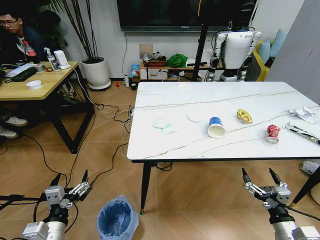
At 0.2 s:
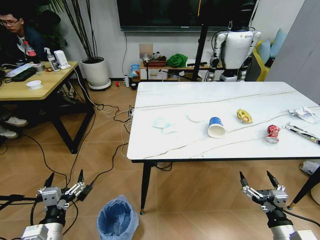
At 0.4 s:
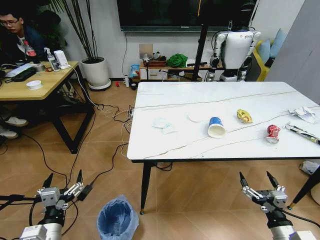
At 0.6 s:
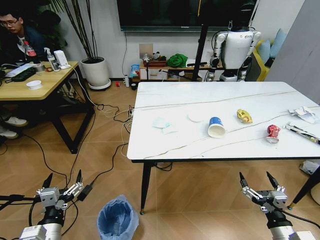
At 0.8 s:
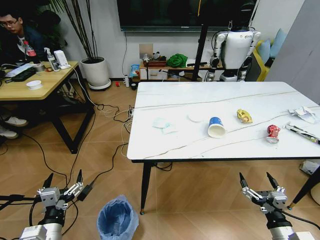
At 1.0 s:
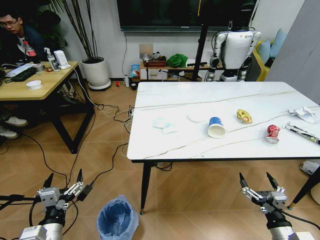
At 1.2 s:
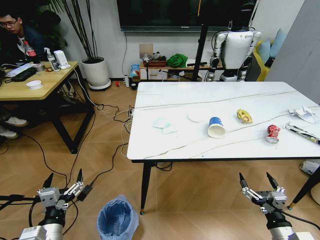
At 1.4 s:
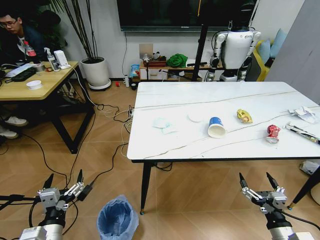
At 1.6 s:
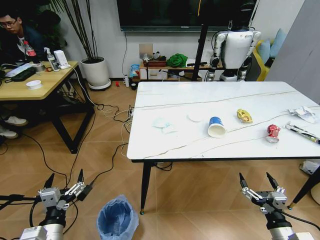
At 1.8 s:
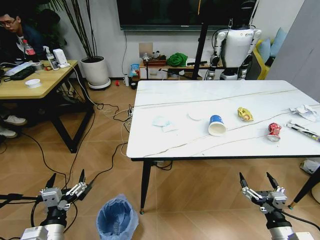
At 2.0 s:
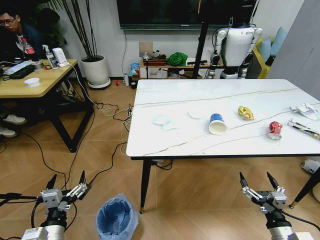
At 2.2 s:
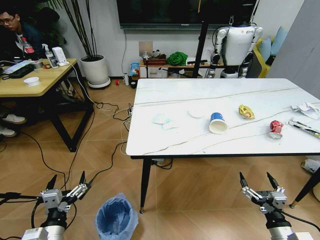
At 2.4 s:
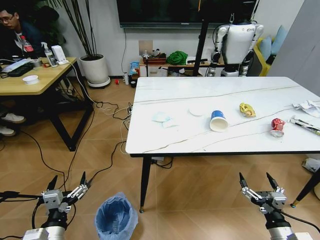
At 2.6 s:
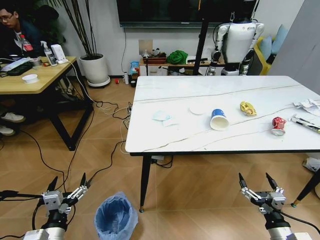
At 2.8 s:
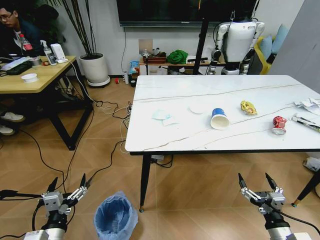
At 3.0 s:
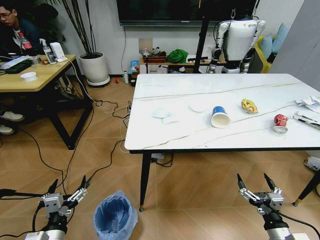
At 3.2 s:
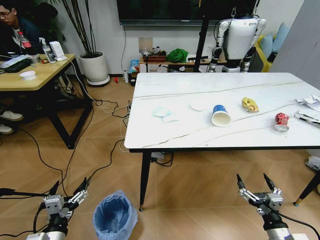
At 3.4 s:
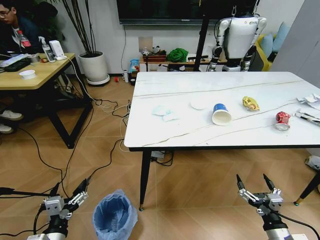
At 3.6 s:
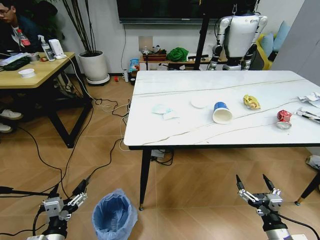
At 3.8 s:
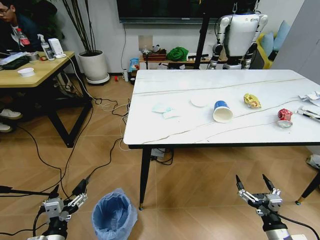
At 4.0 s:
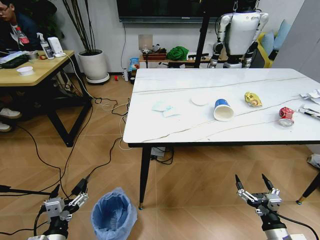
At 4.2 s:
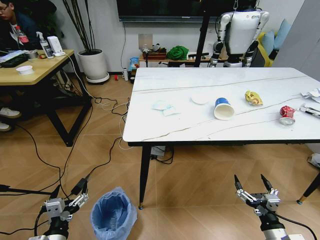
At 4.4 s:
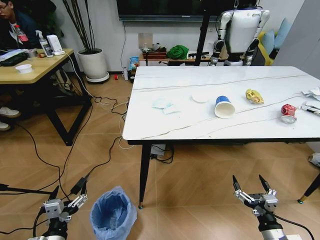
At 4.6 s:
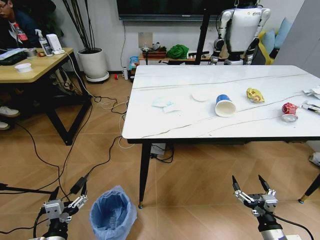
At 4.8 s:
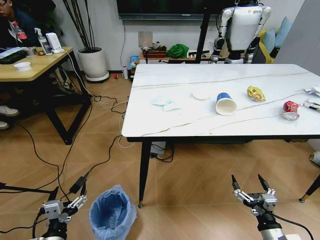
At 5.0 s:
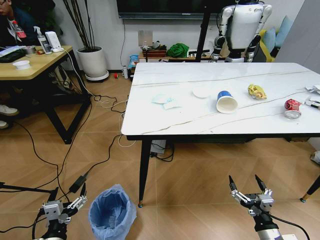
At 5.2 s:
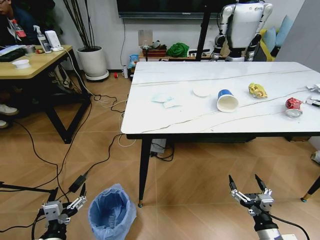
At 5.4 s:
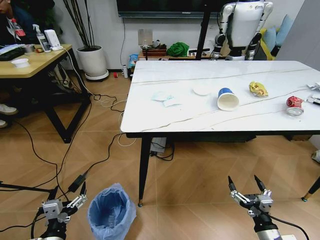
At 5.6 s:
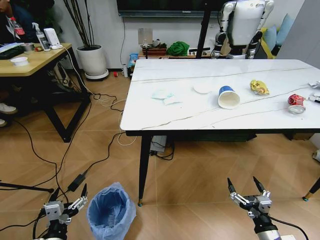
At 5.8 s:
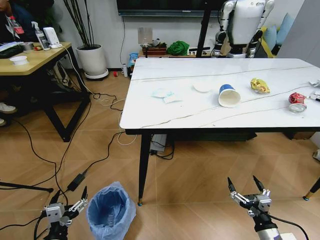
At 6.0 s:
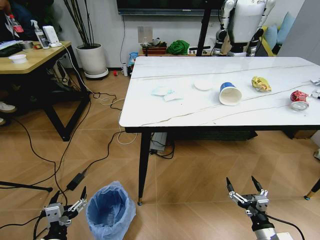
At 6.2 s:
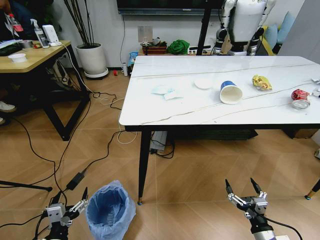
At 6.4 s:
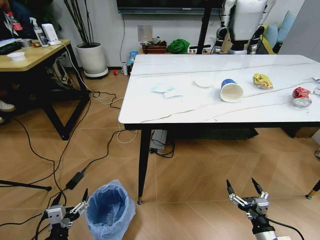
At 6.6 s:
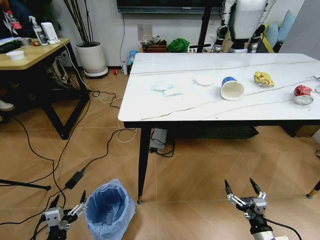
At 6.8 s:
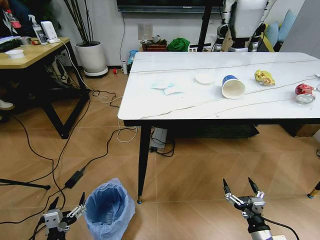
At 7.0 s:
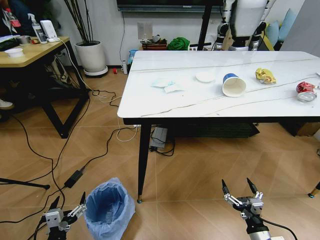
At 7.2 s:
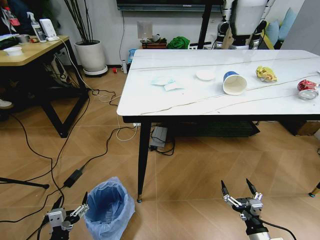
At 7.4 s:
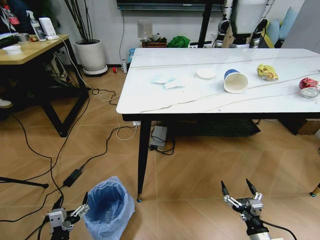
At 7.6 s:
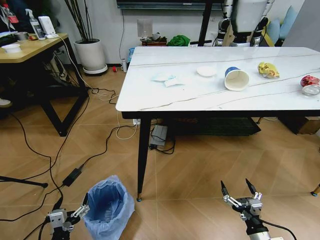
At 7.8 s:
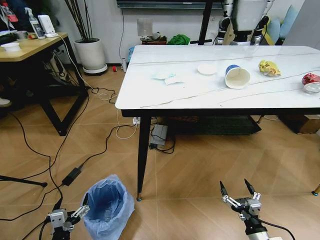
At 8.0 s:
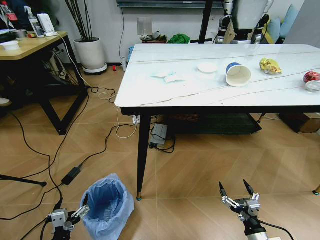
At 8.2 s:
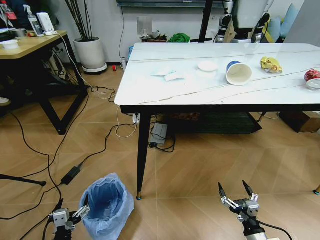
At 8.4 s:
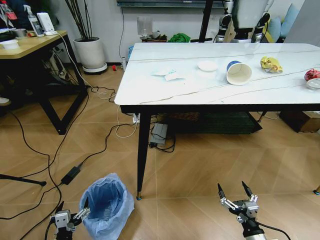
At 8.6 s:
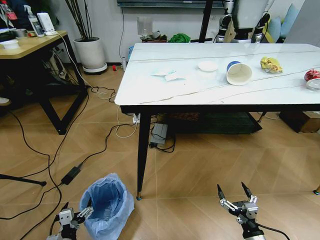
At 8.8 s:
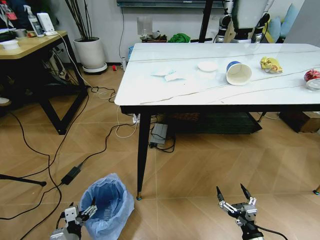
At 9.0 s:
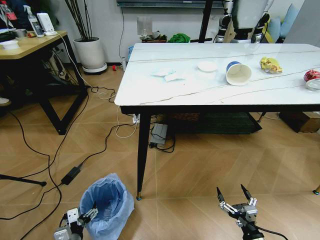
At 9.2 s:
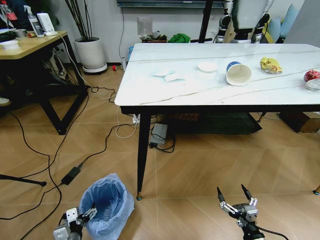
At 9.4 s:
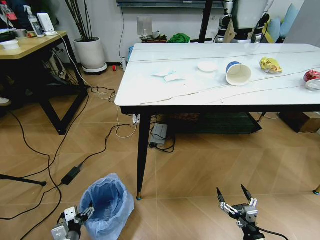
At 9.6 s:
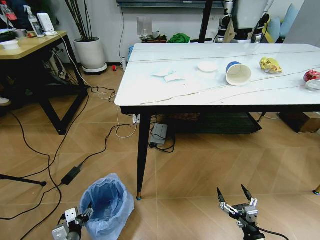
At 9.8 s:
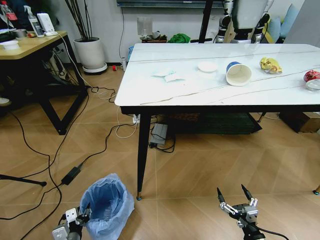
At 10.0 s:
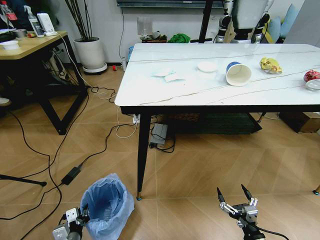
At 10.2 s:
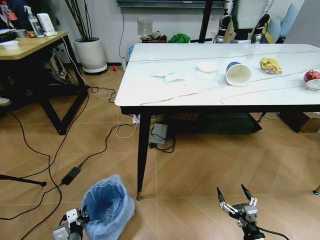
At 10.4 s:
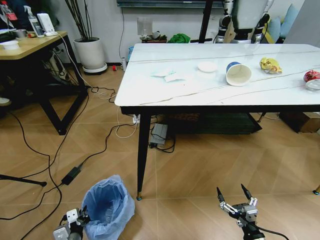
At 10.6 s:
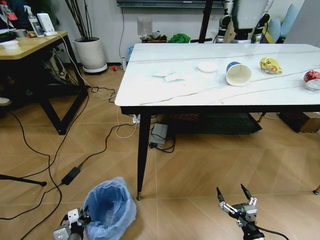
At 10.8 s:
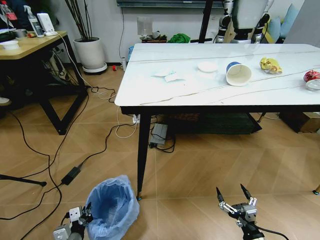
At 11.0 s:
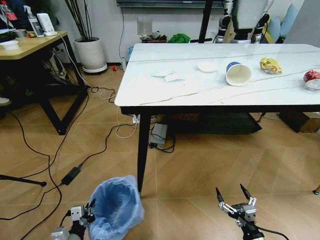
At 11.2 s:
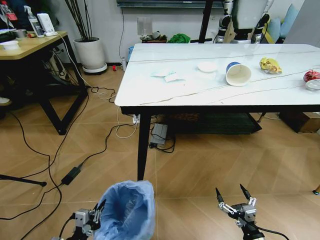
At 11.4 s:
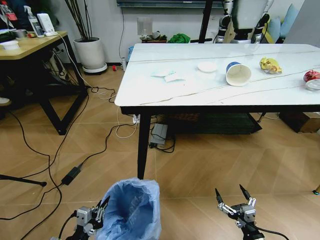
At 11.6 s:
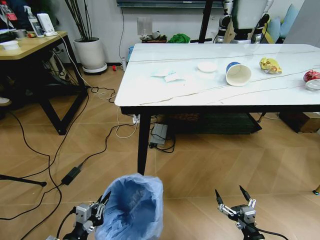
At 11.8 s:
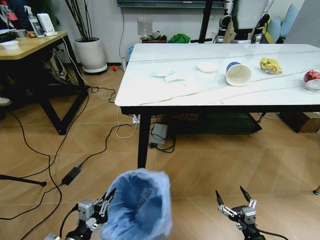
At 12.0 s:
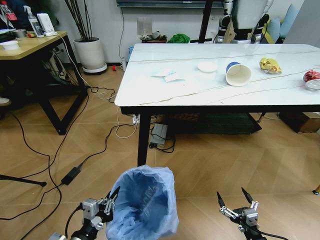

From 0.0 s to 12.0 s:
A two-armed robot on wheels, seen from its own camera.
Task of the whole recording: Pick up the trash bin and place the trash from the table into it.
From 7.6 s to 9.0 s: The left gripper moves downward, approximately 5 cm.
From 9.0 s to 10.4 s: The left gripper closes.
From 10.4 s to 12.0 s: The left gripper shifts some 15 cm upward.

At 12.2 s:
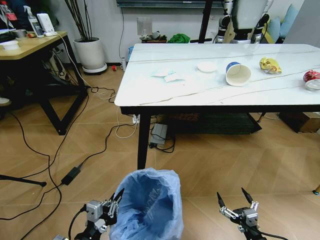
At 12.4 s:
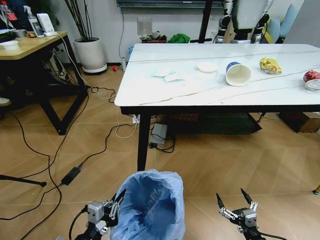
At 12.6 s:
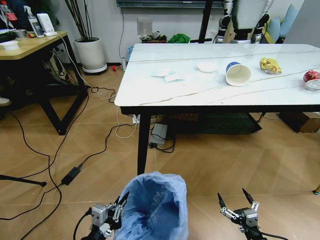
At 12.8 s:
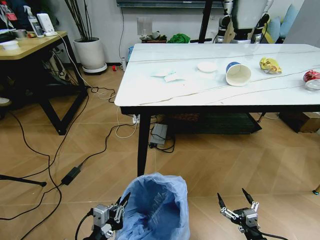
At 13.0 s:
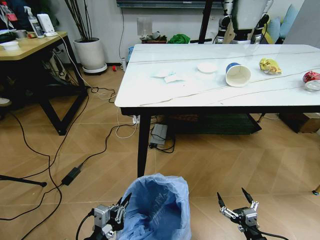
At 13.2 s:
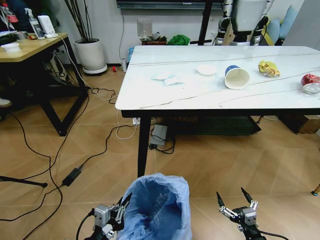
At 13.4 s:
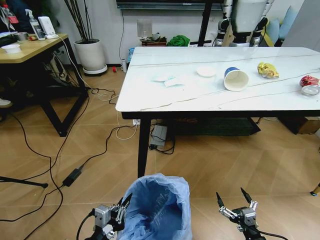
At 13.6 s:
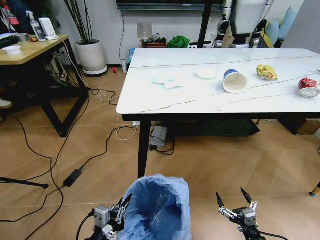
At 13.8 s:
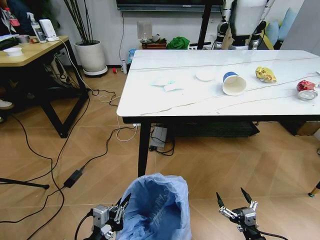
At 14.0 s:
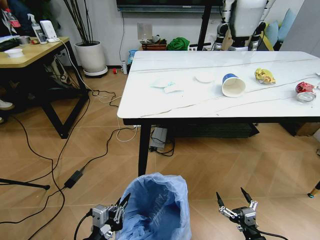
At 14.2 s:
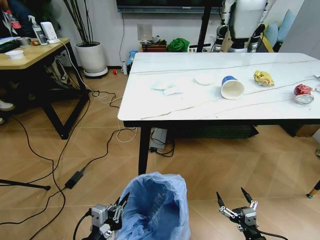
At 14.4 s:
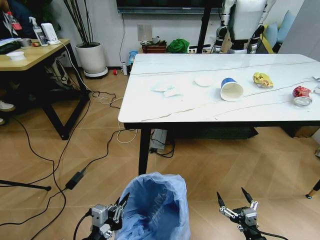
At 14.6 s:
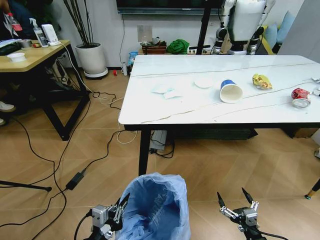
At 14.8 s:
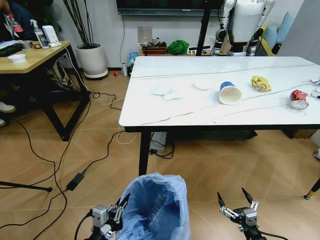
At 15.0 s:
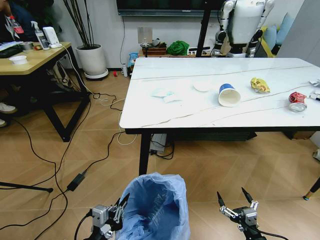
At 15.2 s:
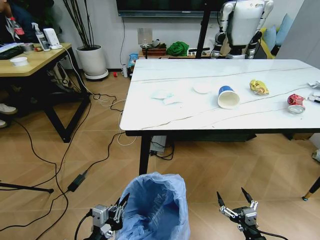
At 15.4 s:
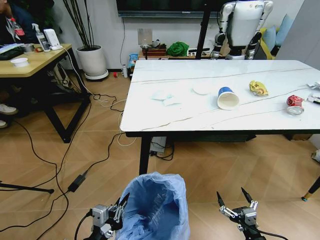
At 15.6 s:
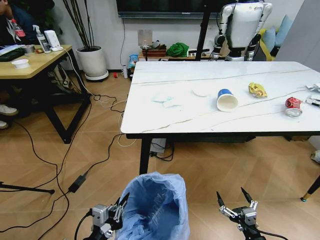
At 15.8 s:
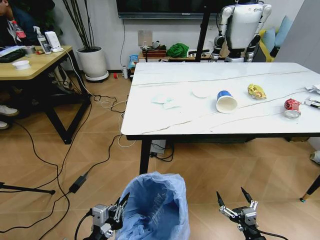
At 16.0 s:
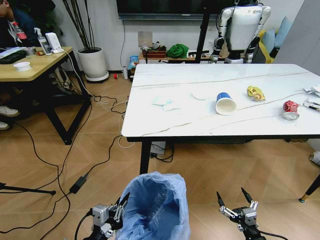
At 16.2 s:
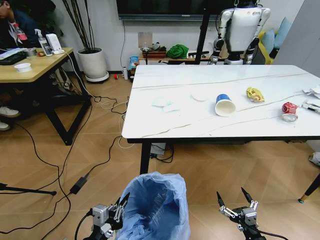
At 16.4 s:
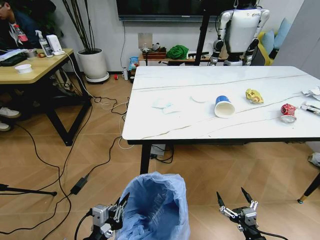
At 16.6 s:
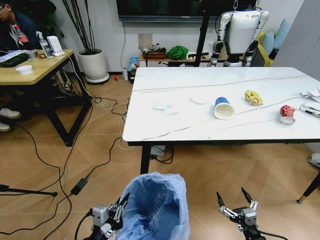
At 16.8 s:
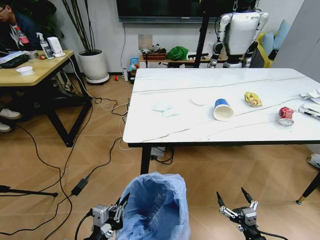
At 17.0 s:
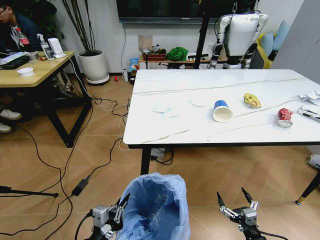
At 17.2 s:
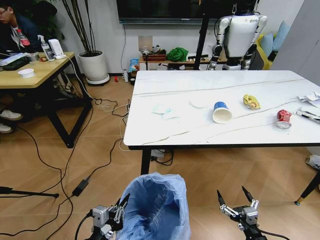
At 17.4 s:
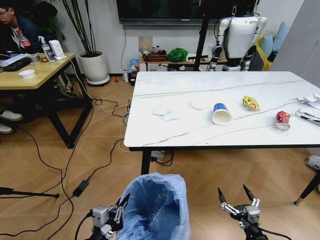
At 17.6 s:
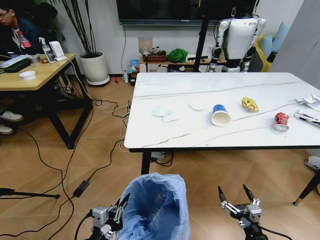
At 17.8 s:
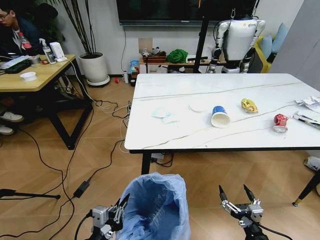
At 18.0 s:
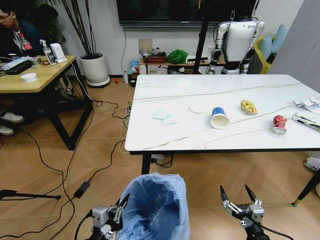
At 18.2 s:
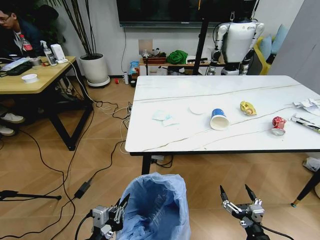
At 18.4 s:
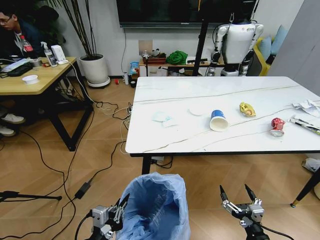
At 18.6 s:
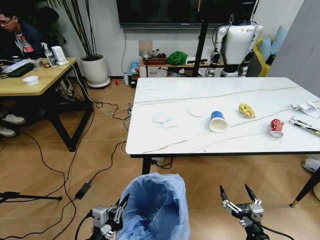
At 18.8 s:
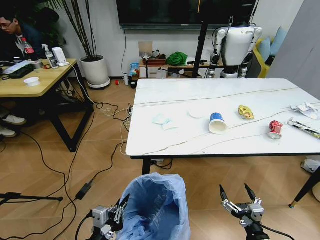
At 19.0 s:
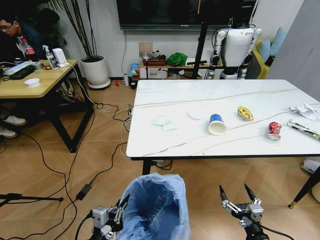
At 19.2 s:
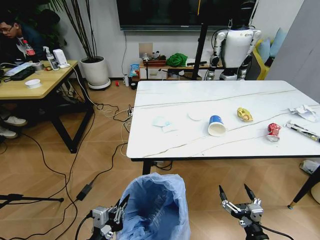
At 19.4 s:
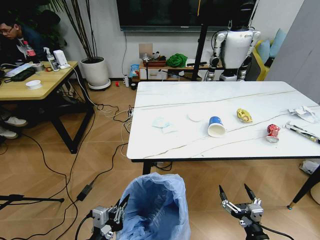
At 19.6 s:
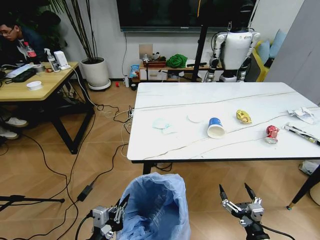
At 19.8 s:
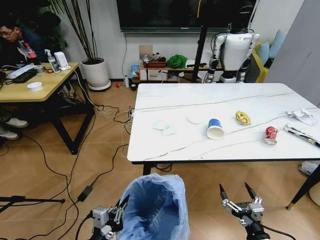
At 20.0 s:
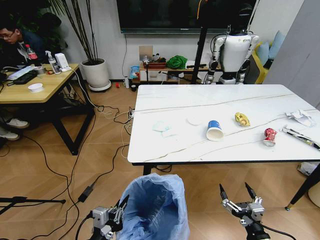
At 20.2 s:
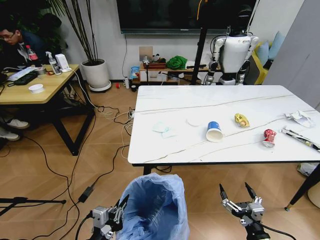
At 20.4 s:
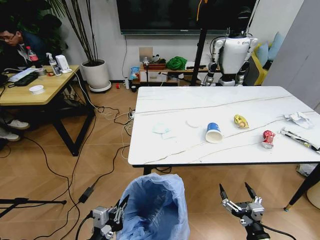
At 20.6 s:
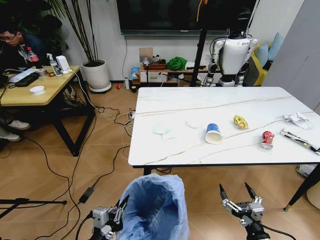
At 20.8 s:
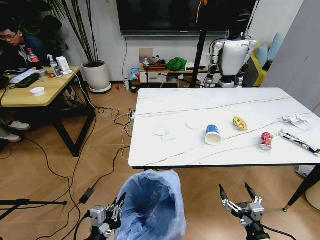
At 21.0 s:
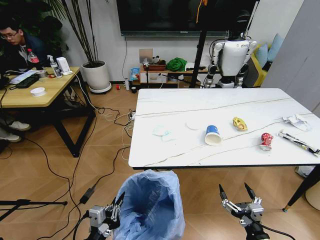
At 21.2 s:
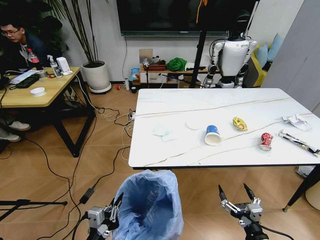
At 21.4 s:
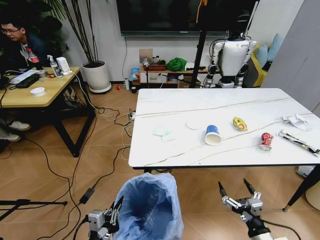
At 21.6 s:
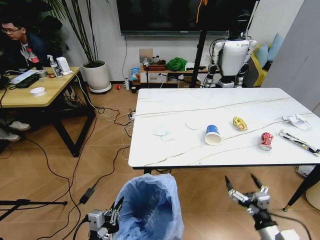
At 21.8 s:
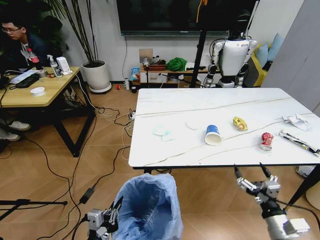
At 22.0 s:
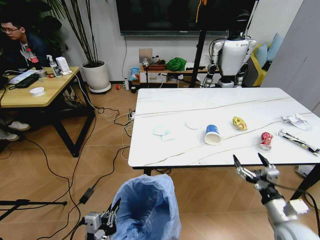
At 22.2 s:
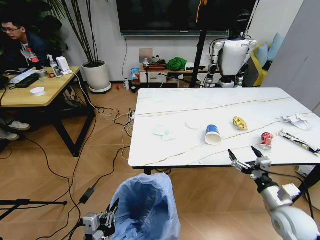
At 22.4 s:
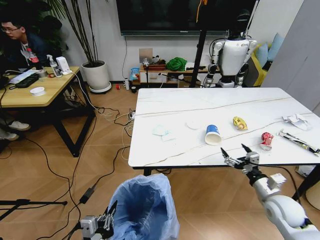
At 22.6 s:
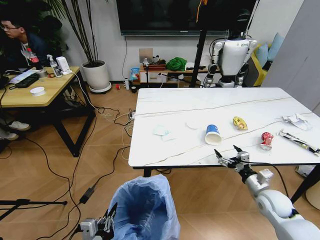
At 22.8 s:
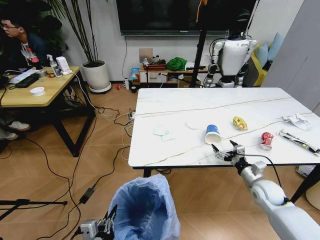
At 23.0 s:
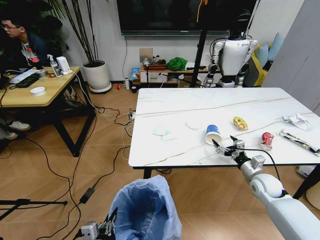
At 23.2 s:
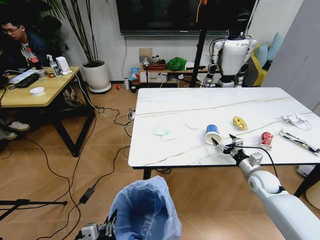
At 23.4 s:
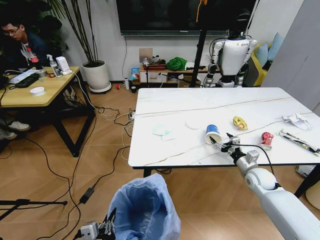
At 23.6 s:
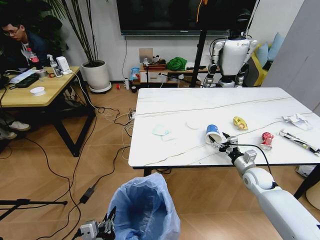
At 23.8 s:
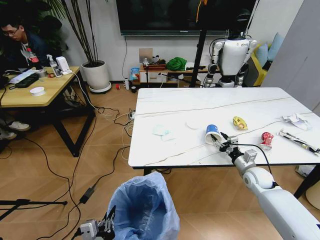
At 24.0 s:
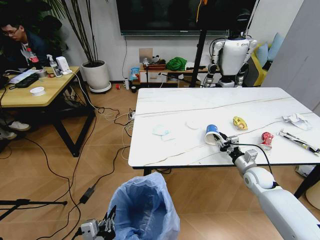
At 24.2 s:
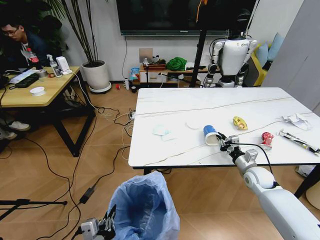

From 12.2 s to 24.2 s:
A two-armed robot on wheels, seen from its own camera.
Task of the whole recording: Pick up the trash bin and place the trash from the table into it.
From 21.2 s to 22.6 s: The right gripper heads forward and to the right, covering some 20 cm.
From 22.6 s to 24.2 s: The right gripper travels forward by about 10 cm, and closes.
